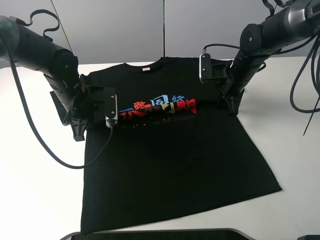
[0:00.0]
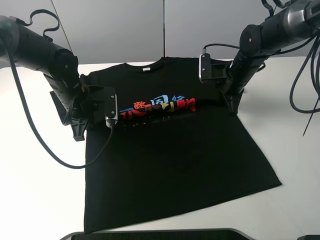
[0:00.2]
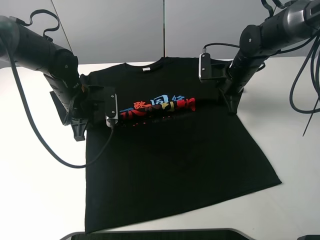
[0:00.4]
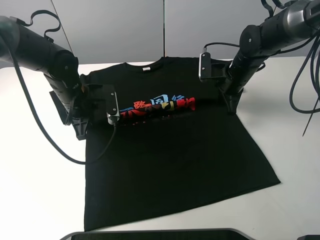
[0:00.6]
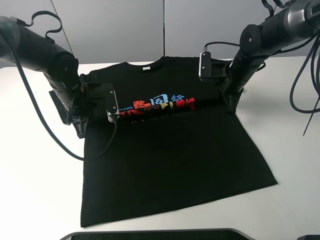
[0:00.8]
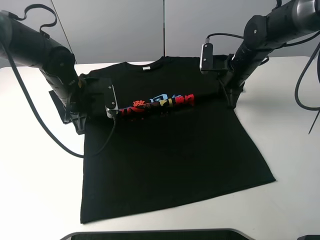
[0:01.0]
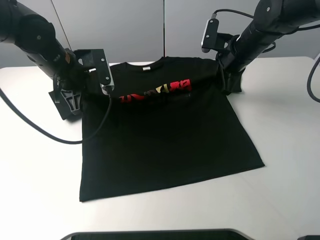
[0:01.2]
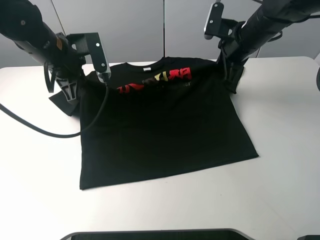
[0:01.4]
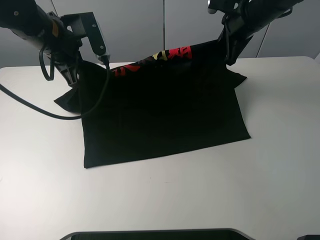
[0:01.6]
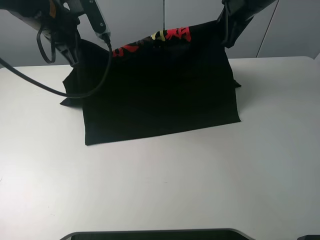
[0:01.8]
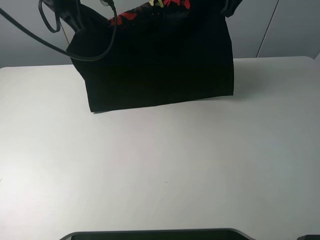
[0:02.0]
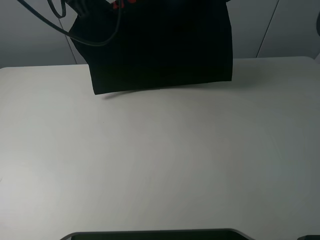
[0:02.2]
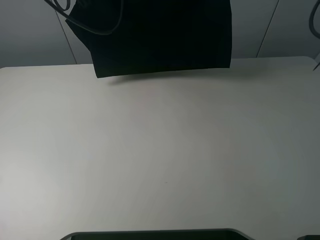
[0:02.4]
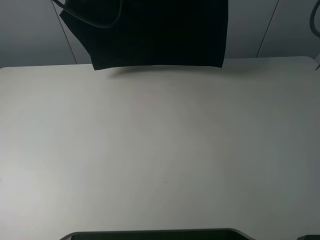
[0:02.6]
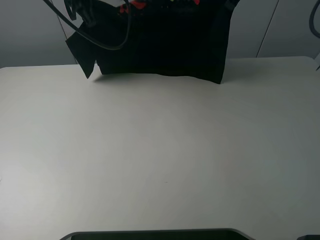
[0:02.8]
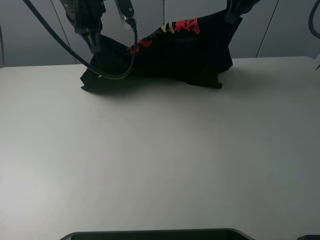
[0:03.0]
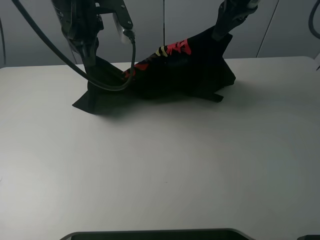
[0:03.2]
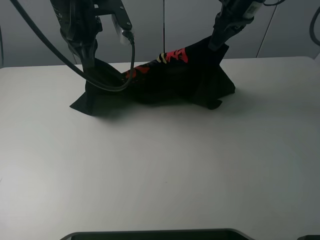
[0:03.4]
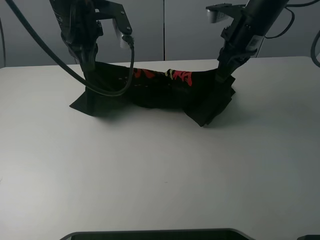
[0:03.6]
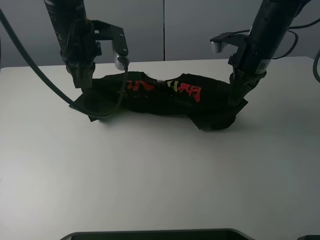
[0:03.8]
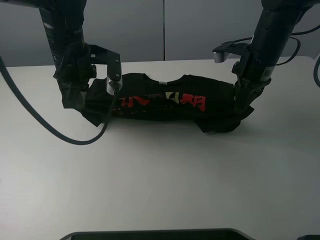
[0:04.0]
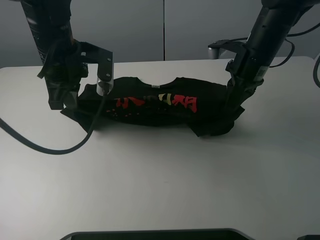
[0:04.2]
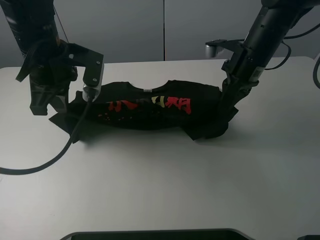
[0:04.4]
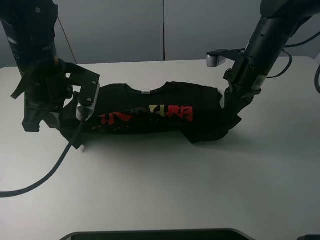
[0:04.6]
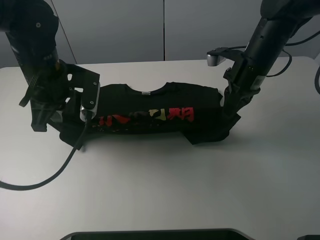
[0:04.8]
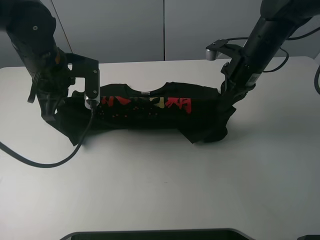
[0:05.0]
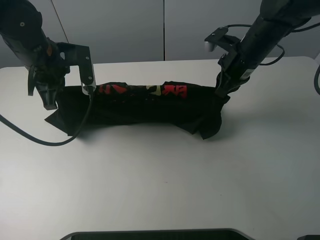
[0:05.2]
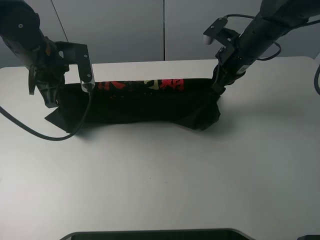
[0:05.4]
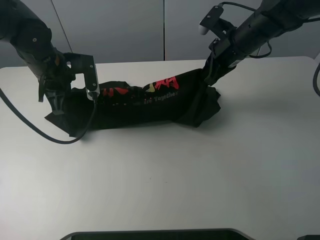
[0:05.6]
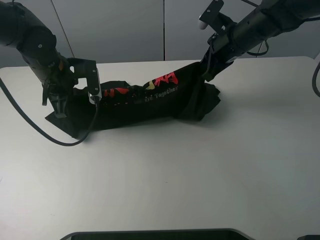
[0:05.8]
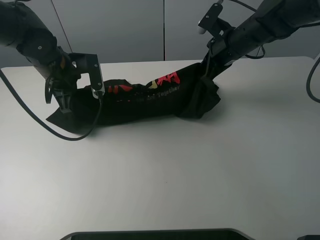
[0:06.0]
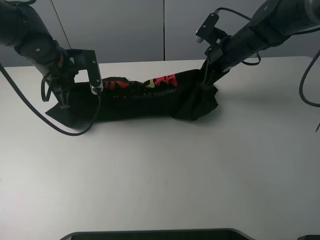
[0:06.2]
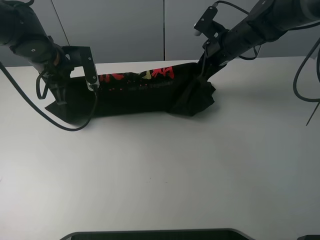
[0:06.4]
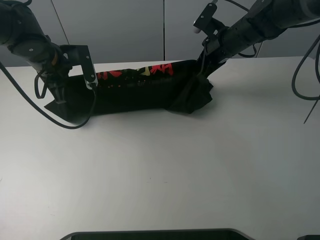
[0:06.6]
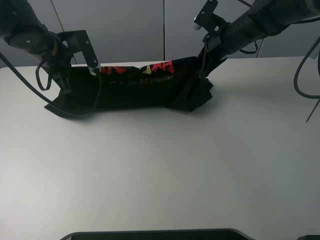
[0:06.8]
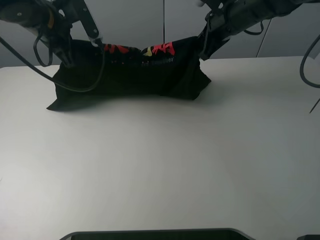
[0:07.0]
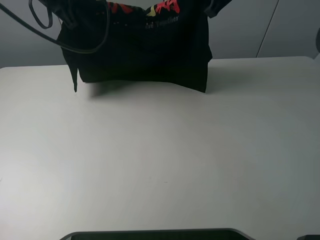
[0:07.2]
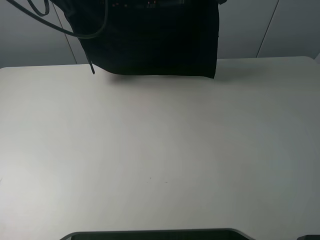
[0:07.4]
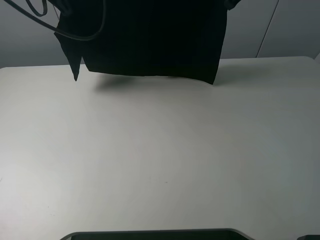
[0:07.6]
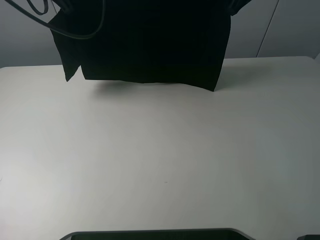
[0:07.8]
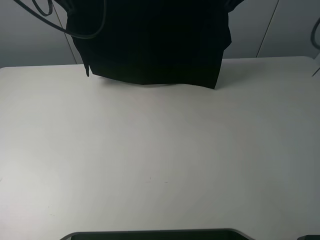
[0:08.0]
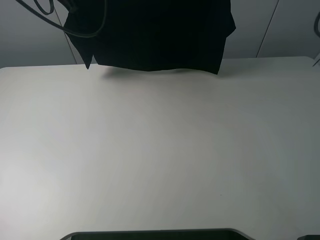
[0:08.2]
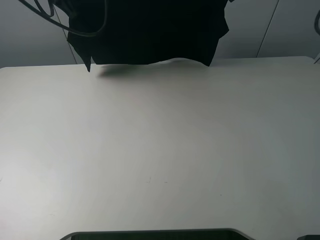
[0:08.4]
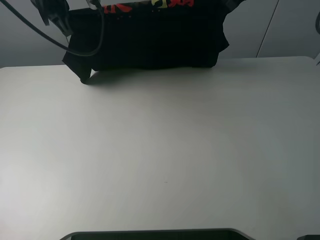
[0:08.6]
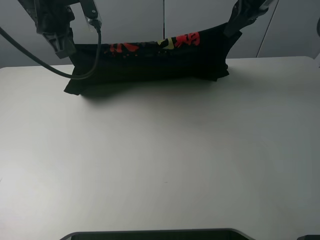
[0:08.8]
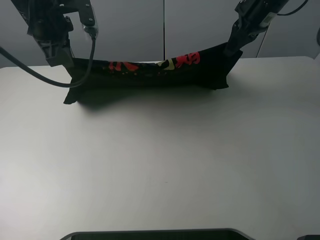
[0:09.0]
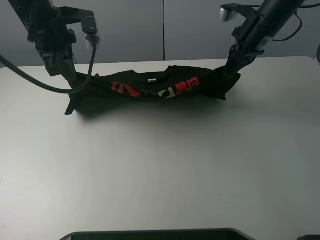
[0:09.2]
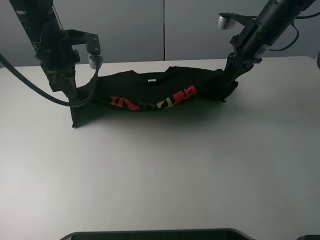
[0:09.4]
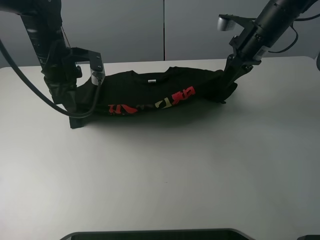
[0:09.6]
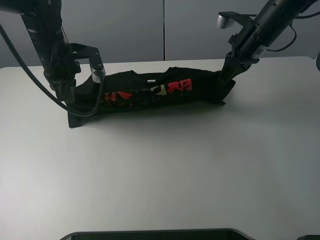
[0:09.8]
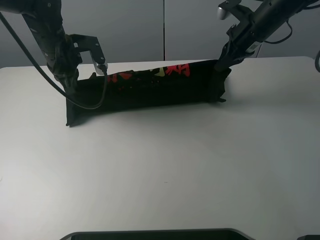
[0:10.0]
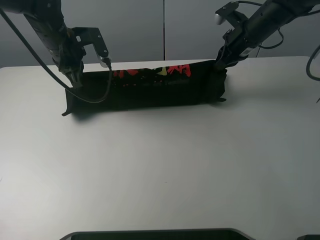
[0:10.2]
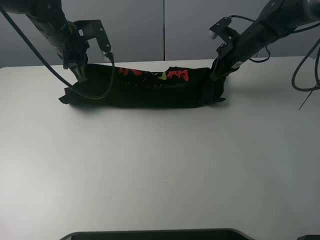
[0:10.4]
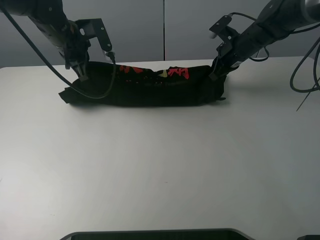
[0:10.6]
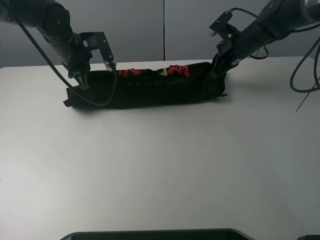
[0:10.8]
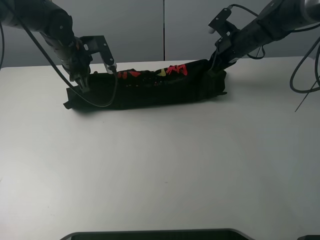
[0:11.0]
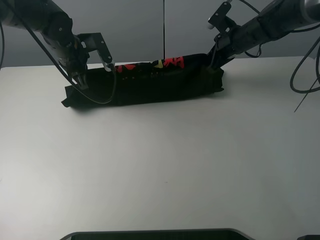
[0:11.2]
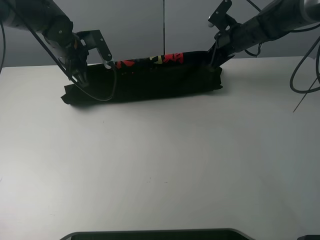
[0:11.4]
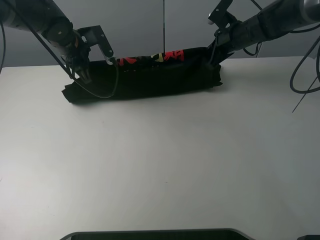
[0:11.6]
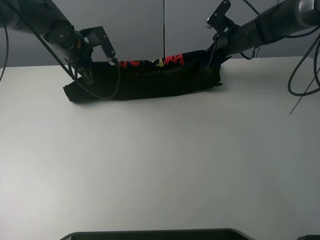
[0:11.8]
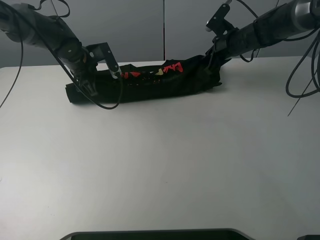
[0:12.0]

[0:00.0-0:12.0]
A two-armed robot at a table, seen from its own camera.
Task of the whole recording: fold the clothes on the table.
0:00.0 to 0:01.6: The two grippers go about 15 cm upward.
0:01.6 to 0:03.0: The left gripper goes approximately 5 cm to the right. The right gripper goes roughly 5 cm upward.
0:03.0 to 0:04.4: The right gripper travels downward and backward by roughly 15 cm, while the left gripper shifts some 10 cm backward and downward.
0:04.4 to 0:06.0: The right gripper travels forward by approximately 5 cm, while the left gripper is displaced forward and downward by roughly 10 cm.
0:06.0 to 0:07.6: The two grippers go about 15 cm upward.
0:07.6 to 0:09.0: The two grippers go approximately 5 cm downward.
0:09.0 to 0:10.4: The left gripper shifts approximately 5 cm downward. The right gripper heads downward, covering some 10 cm.
0:10.4 to 0:12.0: The right gripper opens. Meanwhile the left gripper is displaced downward by some 10 cm.

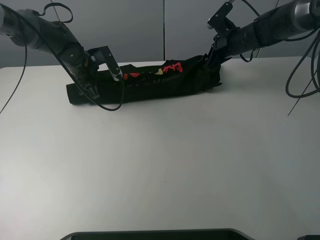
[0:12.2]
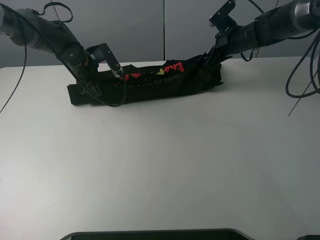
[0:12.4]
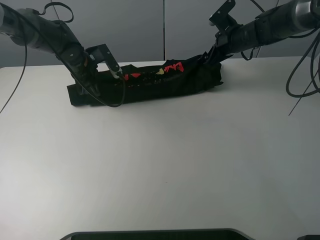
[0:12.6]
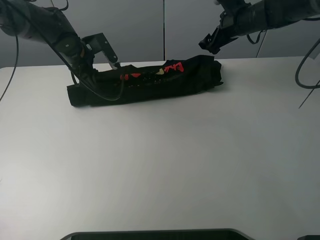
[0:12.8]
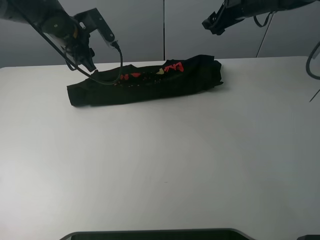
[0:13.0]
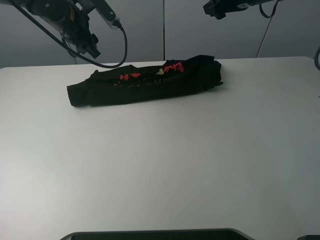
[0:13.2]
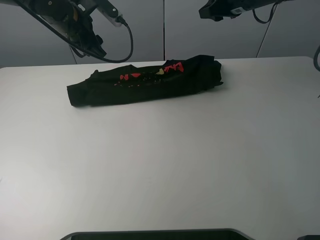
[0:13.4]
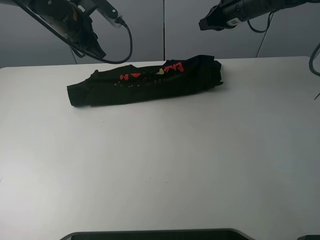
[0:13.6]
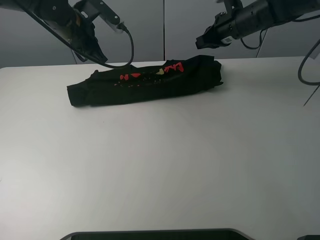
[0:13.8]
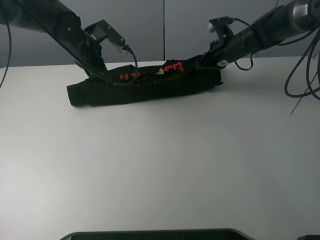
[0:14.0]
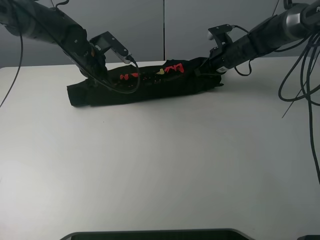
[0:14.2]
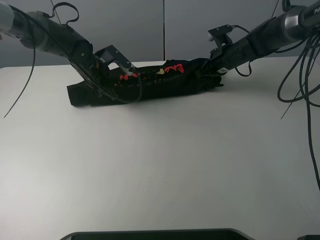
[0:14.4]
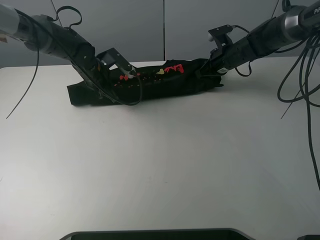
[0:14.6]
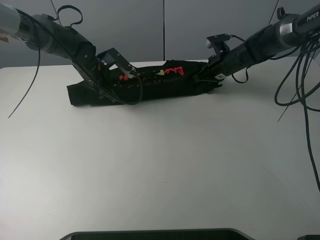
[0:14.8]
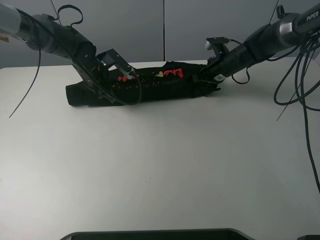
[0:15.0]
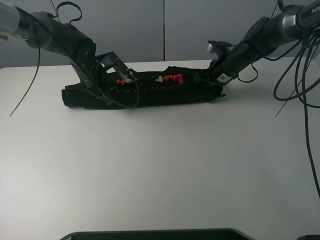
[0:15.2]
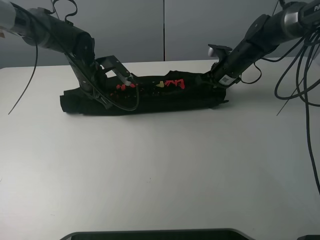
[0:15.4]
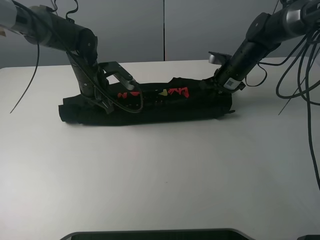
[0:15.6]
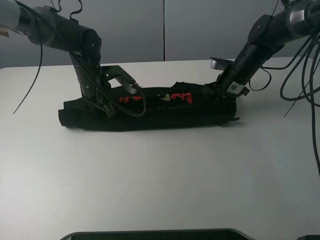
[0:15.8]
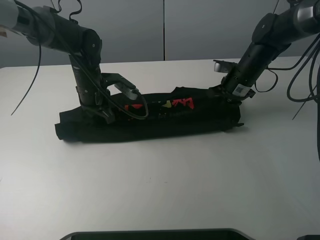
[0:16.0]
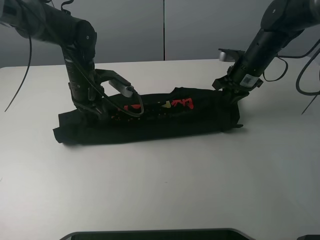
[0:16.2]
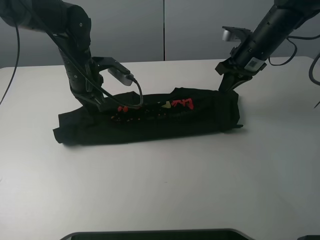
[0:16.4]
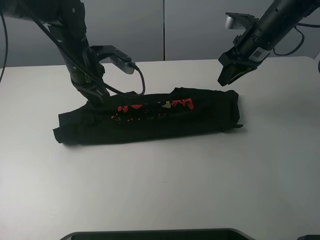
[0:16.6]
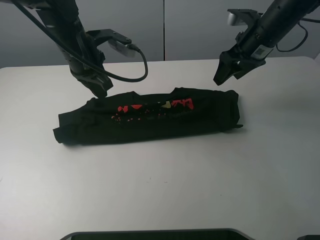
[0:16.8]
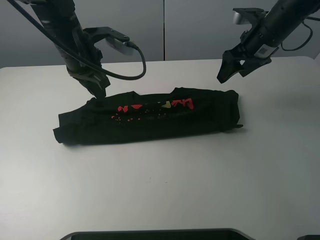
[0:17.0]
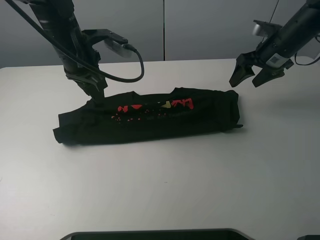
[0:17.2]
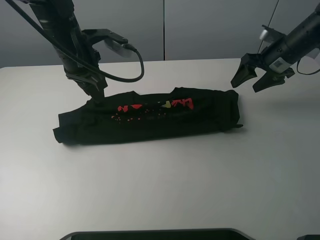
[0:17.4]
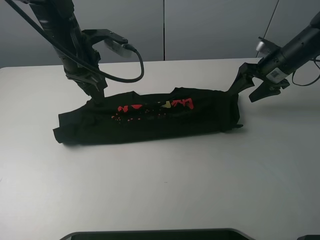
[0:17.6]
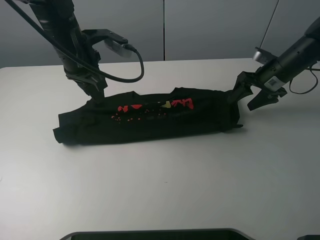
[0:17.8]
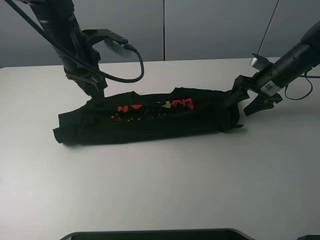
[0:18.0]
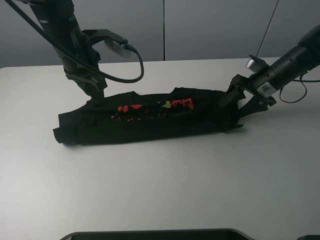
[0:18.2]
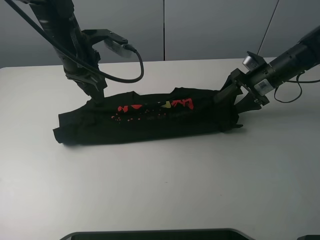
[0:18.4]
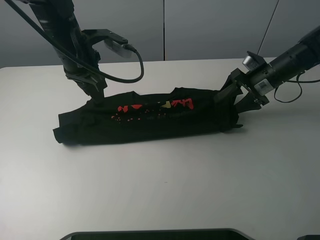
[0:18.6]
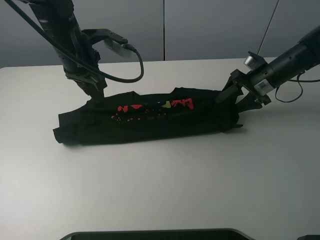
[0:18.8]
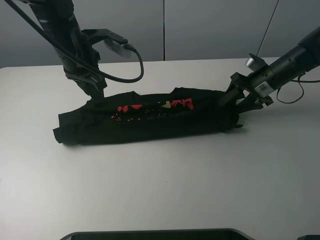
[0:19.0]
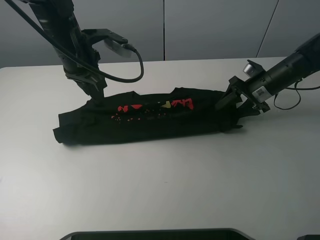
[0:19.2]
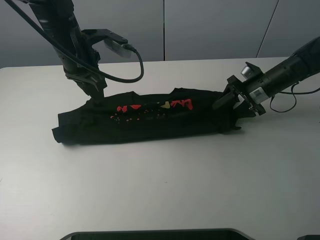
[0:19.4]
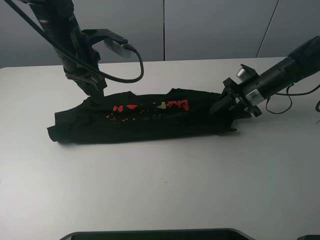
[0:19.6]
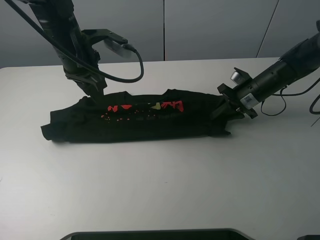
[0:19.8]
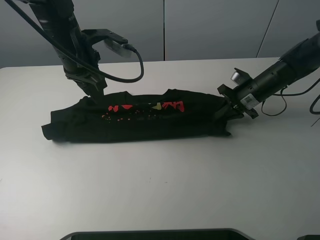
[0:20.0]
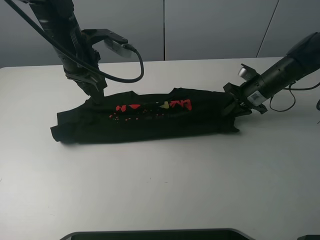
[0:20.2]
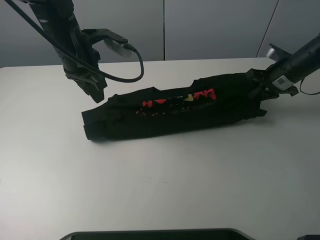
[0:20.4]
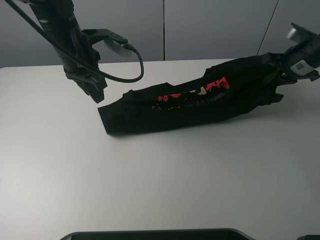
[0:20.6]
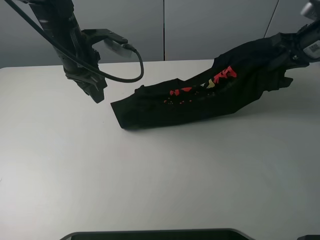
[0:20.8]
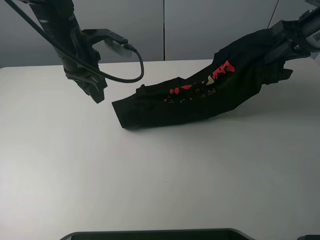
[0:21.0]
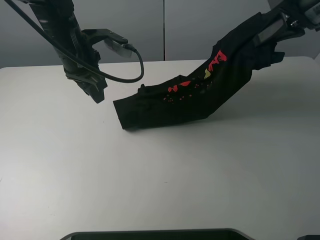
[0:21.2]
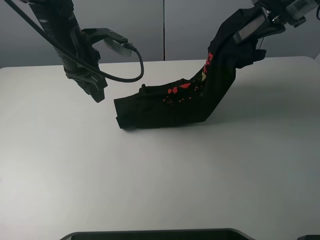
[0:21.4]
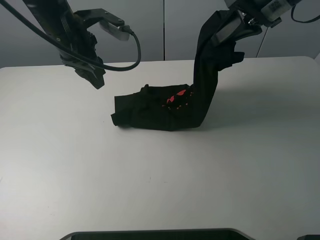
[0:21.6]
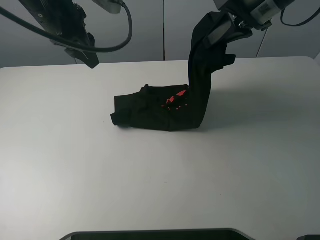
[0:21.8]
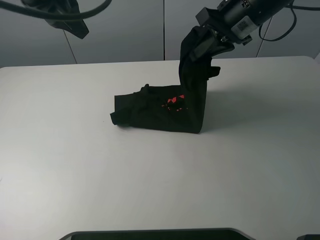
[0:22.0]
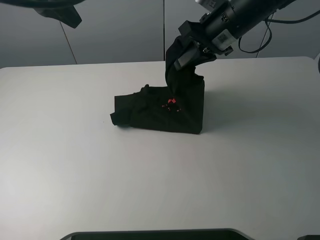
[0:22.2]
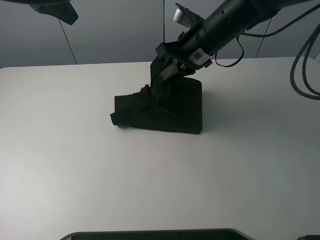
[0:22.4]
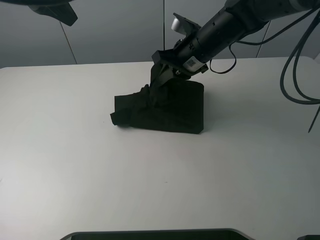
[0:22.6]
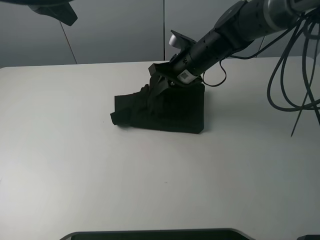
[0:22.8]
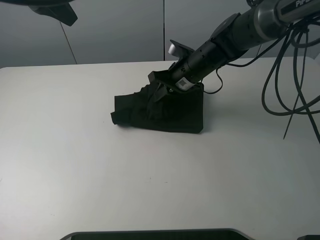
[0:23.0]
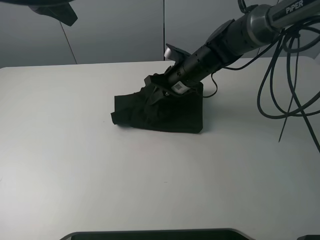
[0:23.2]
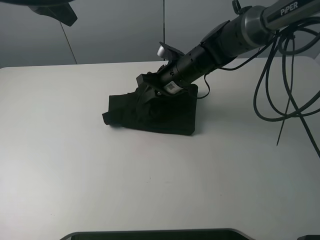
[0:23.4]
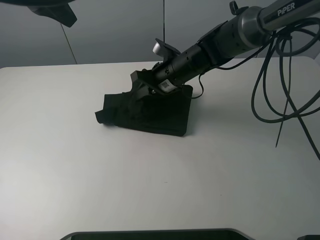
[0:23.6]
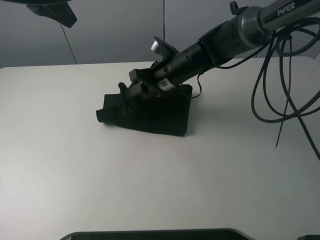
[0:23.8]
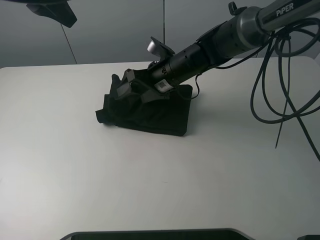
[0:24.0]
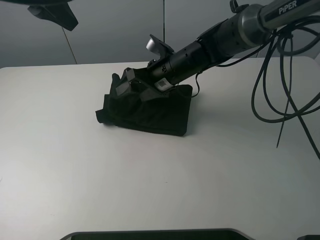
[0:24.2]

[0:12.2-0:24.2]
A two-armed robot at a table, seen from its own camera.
Task of the whole recording: fold the clothes on the table.
Step, 0:13.0 to 0:19.0: Grasp the black T-shirt with the right gripper.
0:12.2 to 0:13.8: The right gripper closes up; the left gripper moves upward, some 10 cm, and closes up.
0:13.8 to 0:15.2: The grippers both shift downward by approximately 10 cm.
0:15.2 to 0:16.6: Both grippers travel together upward and backward, roughly 10 cm.
0:16.6 to 0:18.2: The left gripper opens up. The right gripper is displaced downward and to the right by roughly 10 cm, and opens its fingers.
0:18.2 to 0:19.8: The right gripper closes up.
0:19.8 to 0:21.2: The right gripper moves upward, approximately 25 cm.
0:21.2 to 0:22.6: The right gripper shifts approximately 20 cm to the left and downward, while the left gripper heads upward, covering roughly 15 cm.
0:22.6 to 0:24.2: The right gripper goes some 5 cm to the left, and opens.
